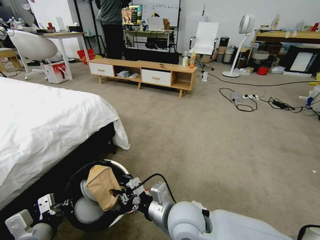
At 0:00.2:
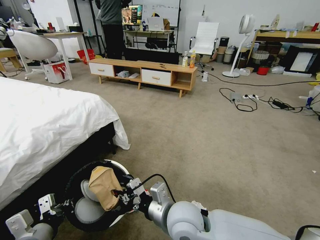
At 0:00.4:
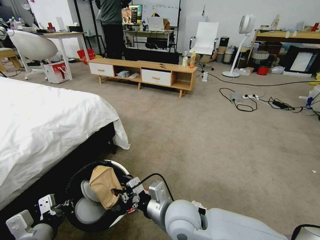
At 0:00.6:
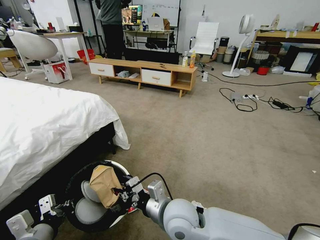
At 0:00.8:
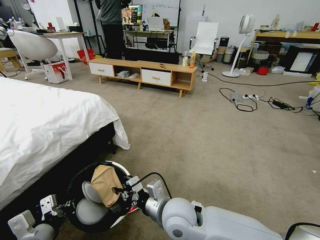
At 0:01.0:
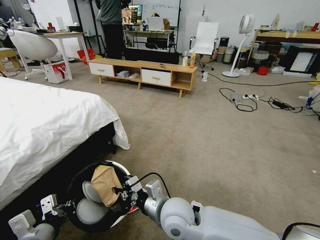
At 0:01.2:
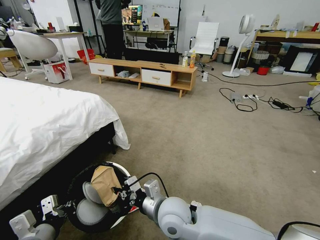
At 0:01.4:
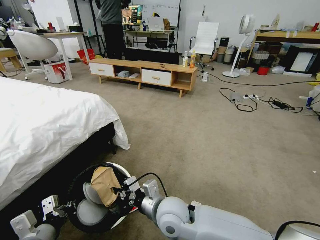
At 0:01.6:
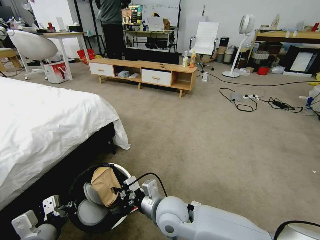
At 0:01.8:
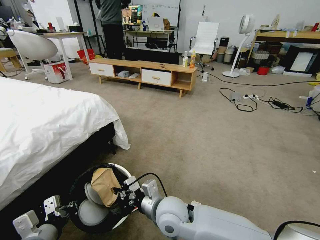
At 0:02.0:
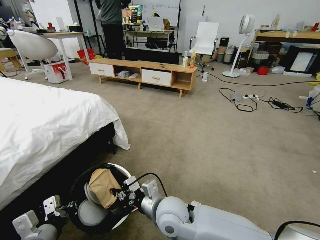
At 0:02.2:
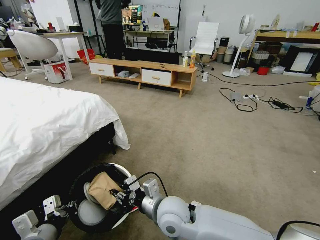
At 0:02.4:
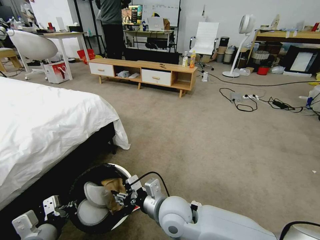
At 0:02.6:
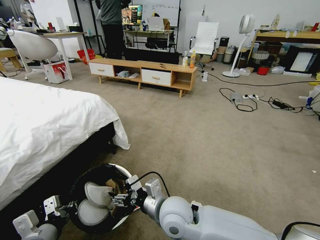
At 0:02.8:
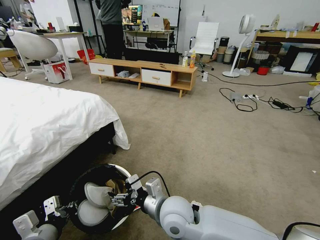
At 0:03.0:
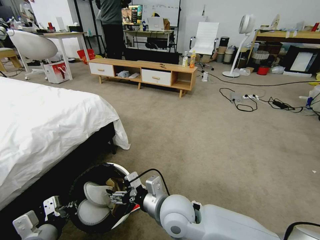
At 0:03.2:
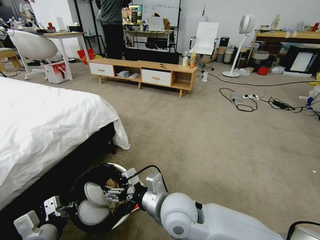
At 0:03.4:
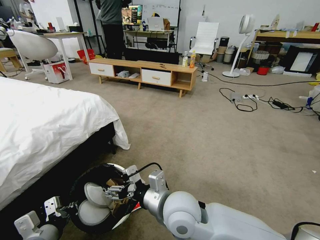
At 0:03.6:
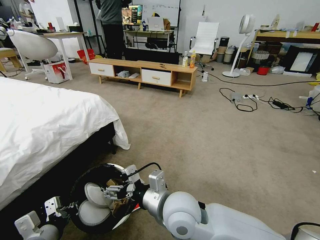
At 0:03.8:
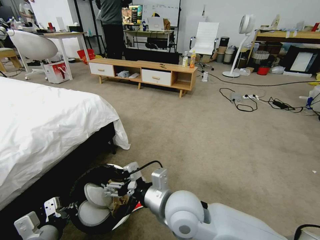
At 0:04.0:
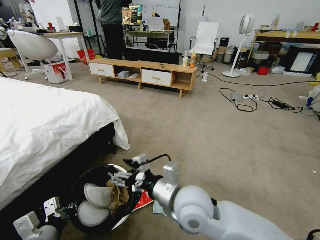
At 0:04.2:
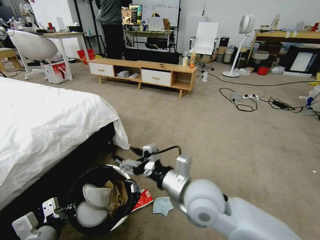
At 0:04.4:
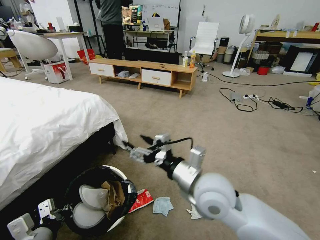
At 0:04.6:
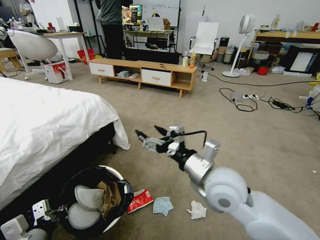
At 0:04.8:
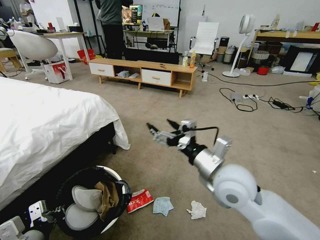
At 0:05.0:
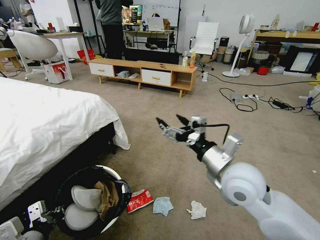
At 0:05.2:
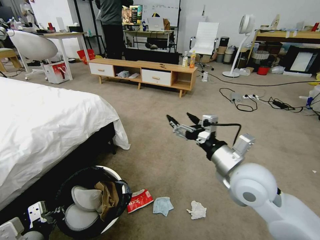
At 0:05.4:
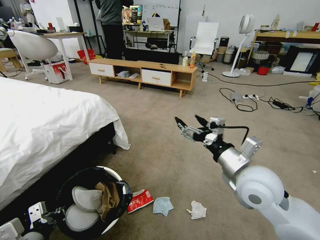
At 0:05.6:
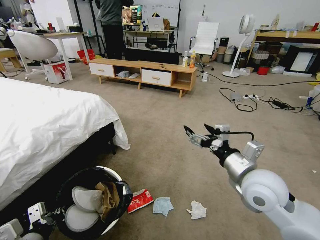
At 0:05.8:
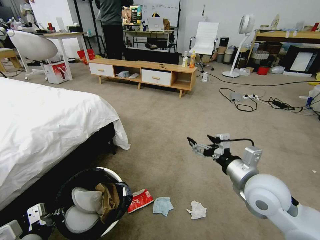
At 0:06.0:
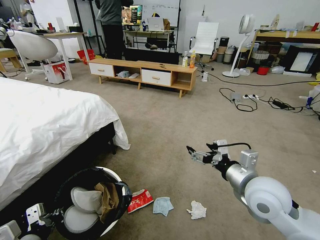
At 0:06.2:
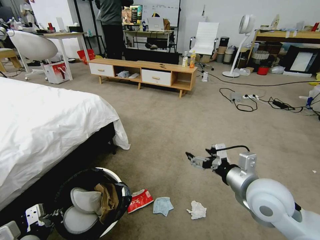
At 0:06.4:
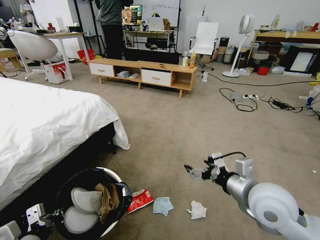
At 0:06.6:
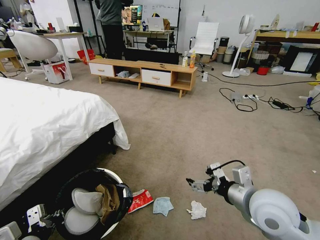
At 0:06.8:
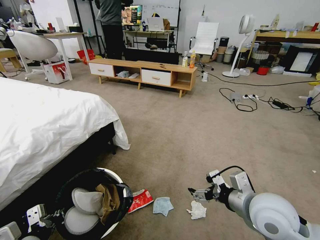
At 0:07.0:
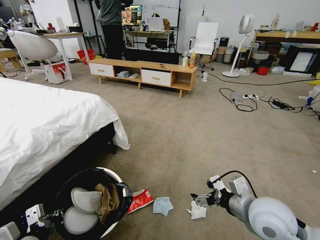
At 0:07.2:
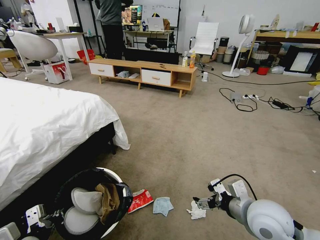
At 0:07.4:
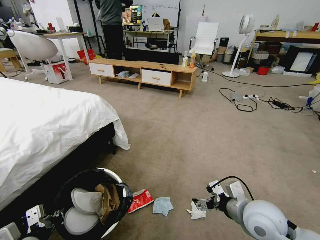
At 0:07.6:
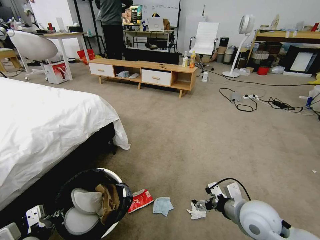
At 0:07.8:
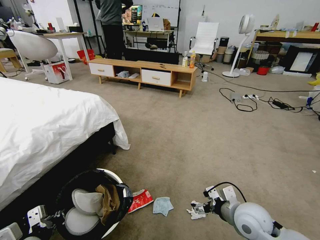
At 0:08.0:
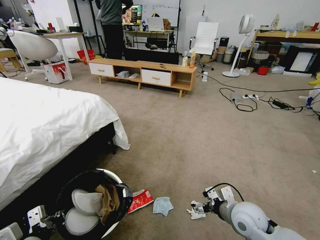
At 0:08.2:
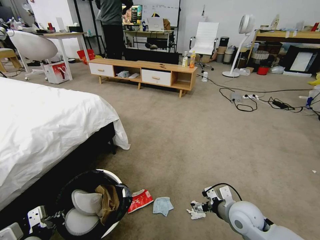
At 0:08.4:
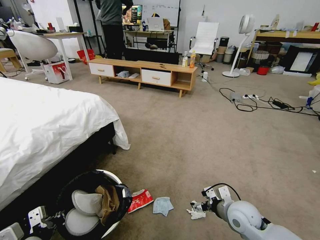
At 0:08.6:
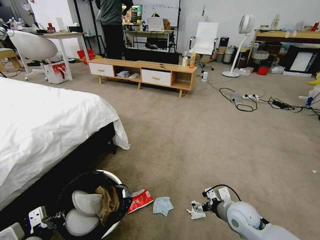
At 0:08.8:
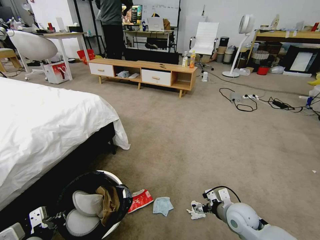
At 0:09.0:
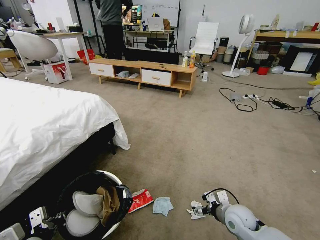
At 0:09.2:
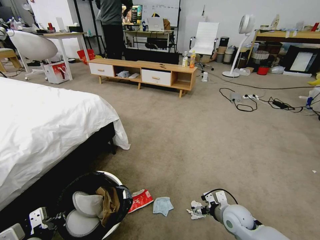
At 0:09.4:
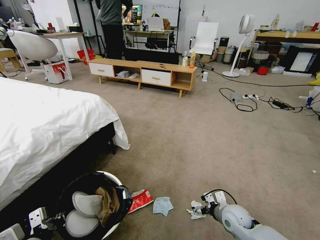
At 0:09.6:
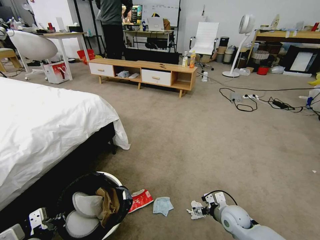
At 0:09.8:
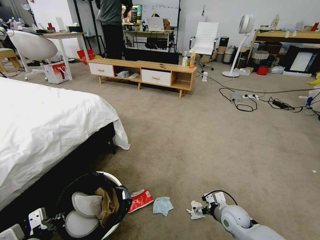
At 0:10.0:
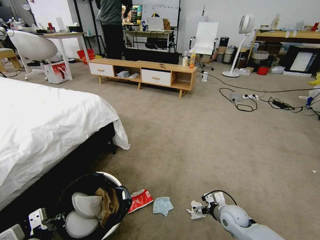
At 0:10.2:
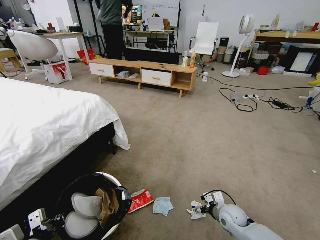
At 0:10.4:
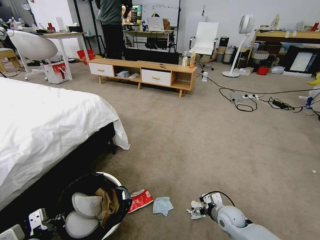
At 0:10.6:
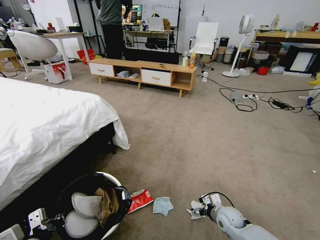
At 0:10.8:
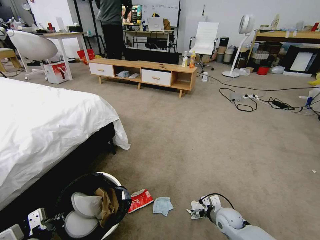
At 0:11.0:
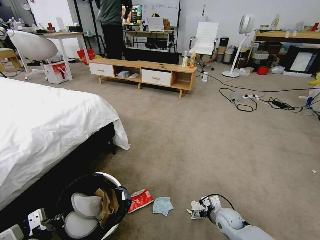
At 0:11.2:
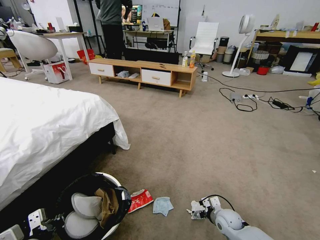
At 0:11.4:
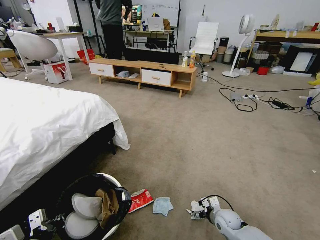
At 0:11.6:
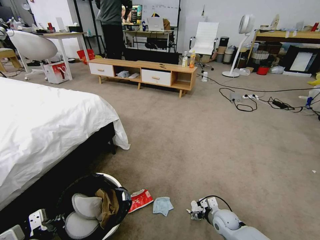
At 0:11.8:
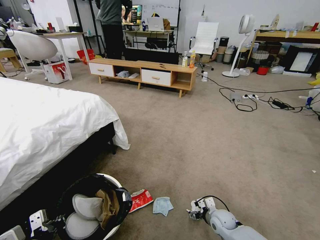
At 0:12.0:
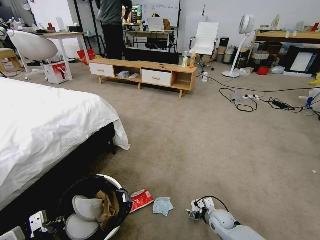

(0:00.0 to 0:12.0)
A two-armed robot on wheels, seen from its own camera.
Task of the whole recording: Pick up the trash bin and place the garbage on the floor into it.
0:00.0 - 0:01.6: The right gripper changes place by approximately 5 cm.
0:01.6 - 0:03.0: The right gripper opens up.
0:03.0 - 0:04.4: The right gripper moves upward and to the right, approximately 10 cm.
0:04.4 - 0:06.0: The right gripper moves to the right, about 15 cm.
0:06.0 - 0:07.6: The right gripper shifts approximately 10 cm downward.
0:07.6 - 0:09.0: The right gripper goes about 10 cm downward.
0:09.0 - 0:10.4: The right gripper moves downward, about 5 cm.
0:10.4 - 0:12.0: The right gripper is displaced downward by about 5 cm.

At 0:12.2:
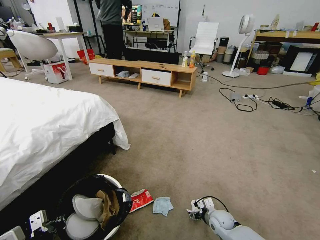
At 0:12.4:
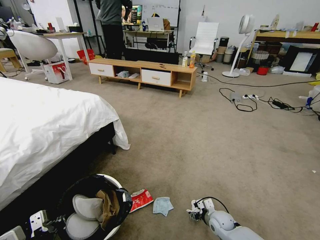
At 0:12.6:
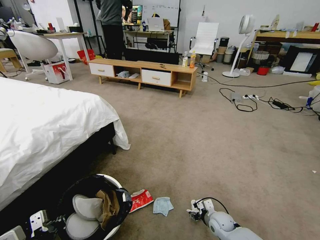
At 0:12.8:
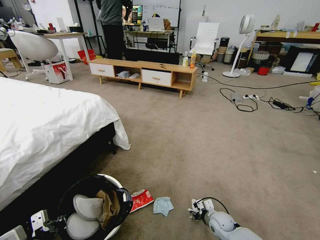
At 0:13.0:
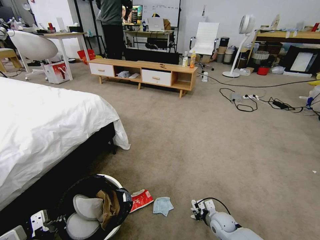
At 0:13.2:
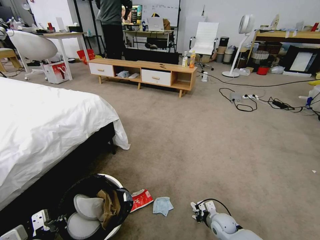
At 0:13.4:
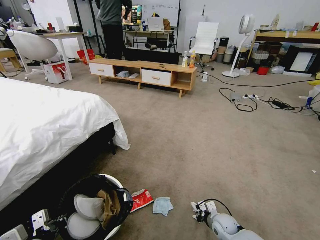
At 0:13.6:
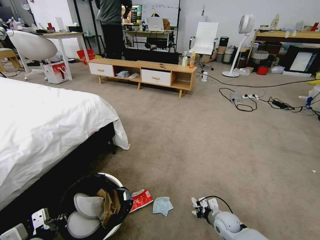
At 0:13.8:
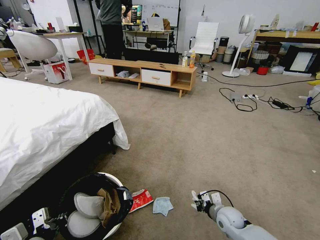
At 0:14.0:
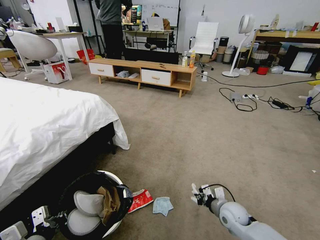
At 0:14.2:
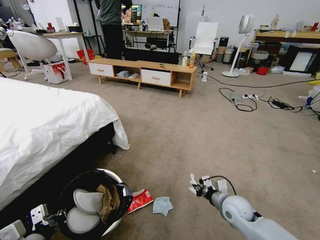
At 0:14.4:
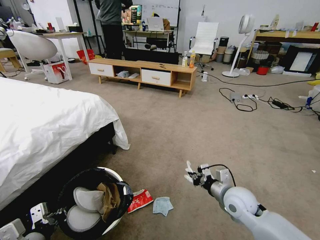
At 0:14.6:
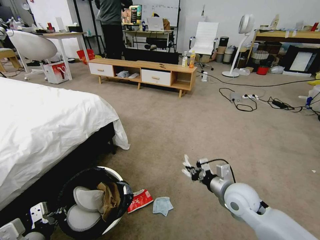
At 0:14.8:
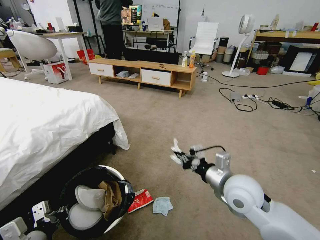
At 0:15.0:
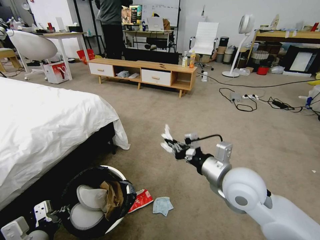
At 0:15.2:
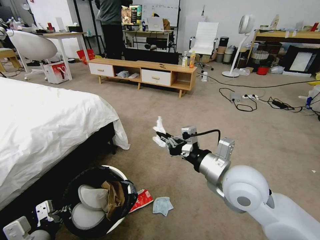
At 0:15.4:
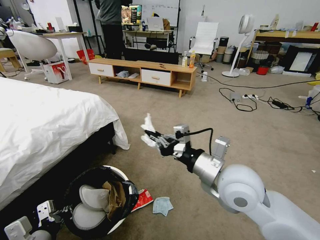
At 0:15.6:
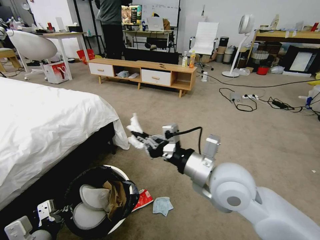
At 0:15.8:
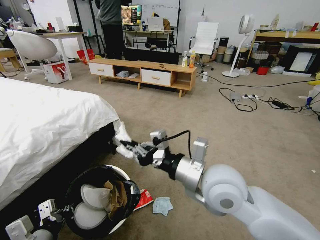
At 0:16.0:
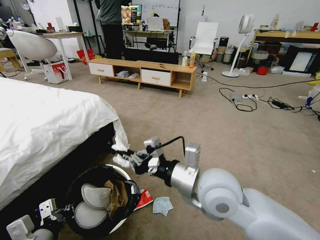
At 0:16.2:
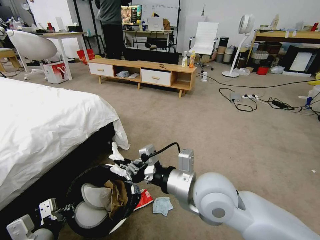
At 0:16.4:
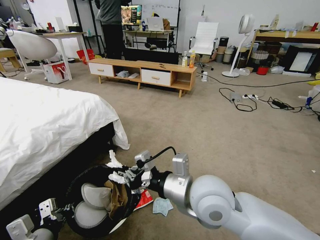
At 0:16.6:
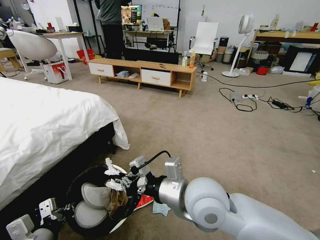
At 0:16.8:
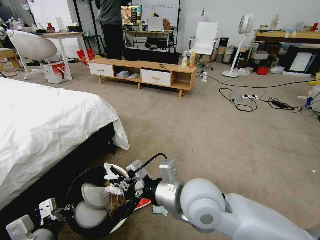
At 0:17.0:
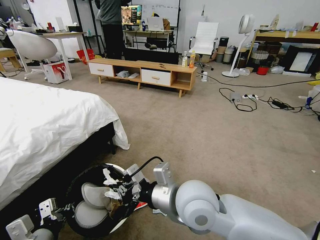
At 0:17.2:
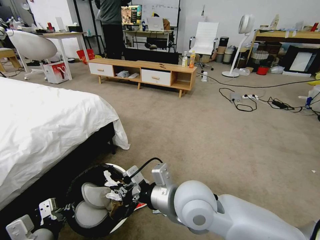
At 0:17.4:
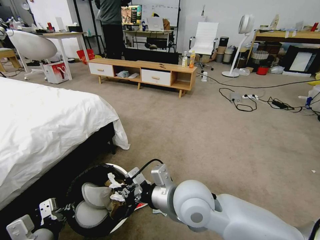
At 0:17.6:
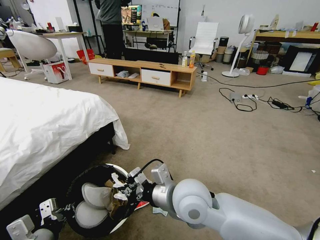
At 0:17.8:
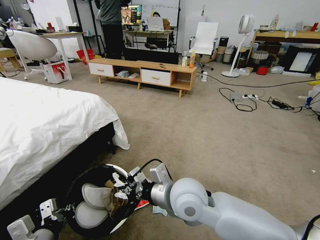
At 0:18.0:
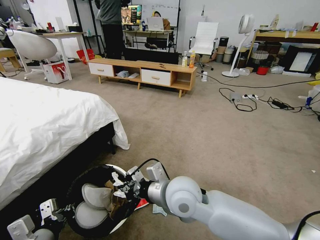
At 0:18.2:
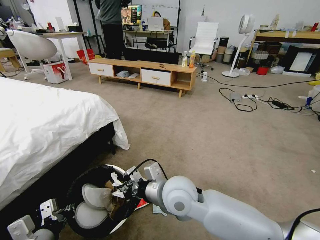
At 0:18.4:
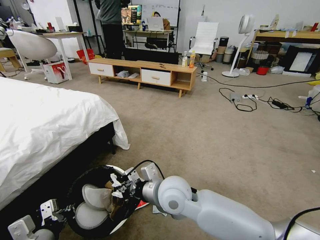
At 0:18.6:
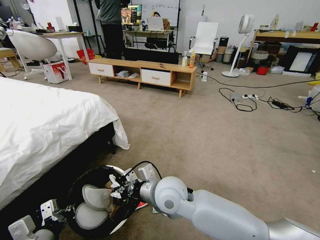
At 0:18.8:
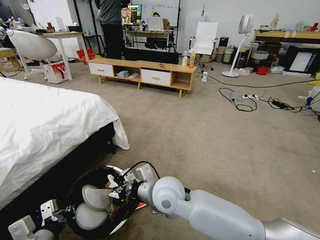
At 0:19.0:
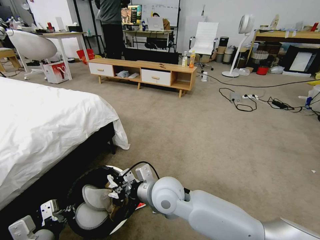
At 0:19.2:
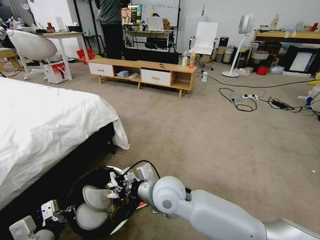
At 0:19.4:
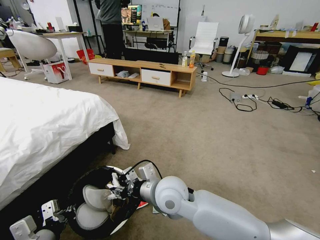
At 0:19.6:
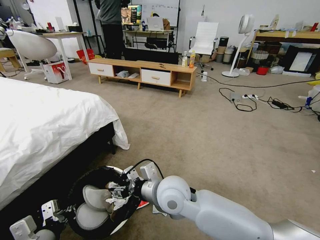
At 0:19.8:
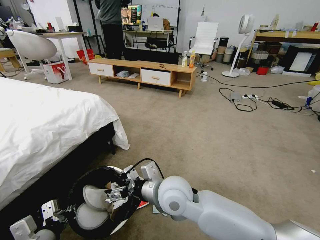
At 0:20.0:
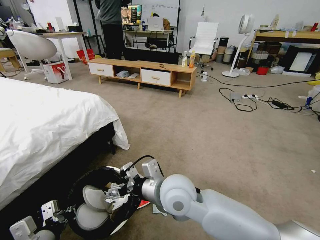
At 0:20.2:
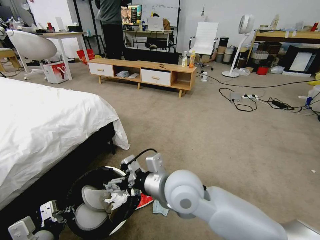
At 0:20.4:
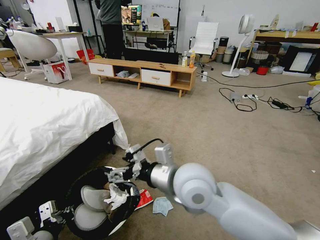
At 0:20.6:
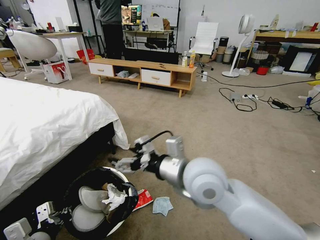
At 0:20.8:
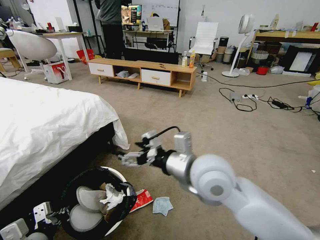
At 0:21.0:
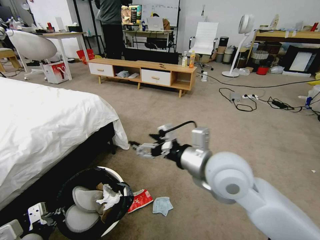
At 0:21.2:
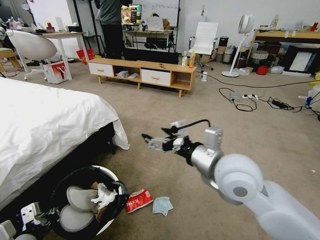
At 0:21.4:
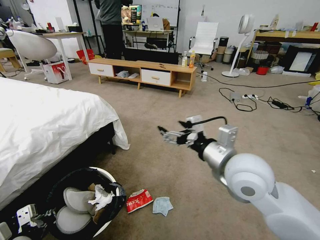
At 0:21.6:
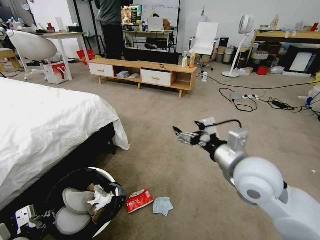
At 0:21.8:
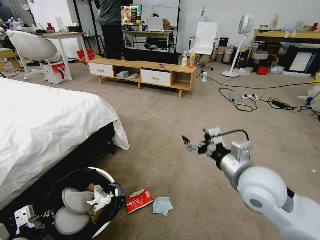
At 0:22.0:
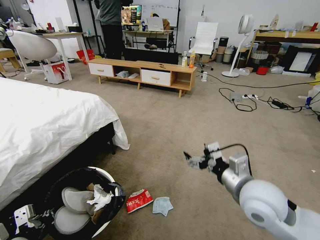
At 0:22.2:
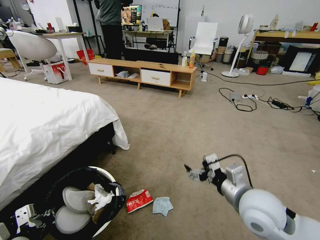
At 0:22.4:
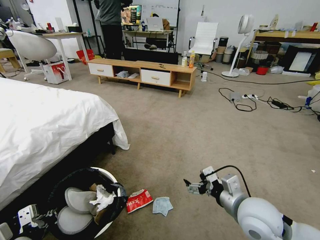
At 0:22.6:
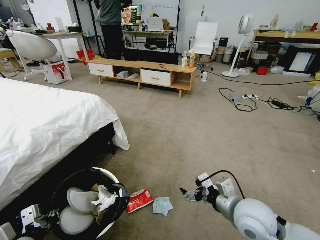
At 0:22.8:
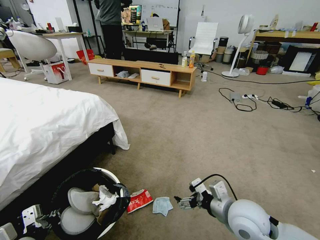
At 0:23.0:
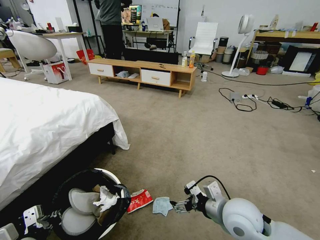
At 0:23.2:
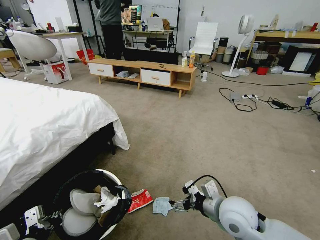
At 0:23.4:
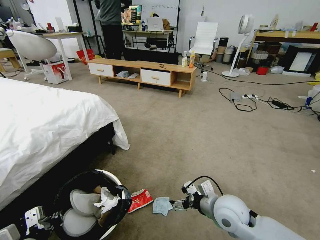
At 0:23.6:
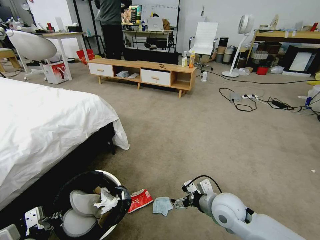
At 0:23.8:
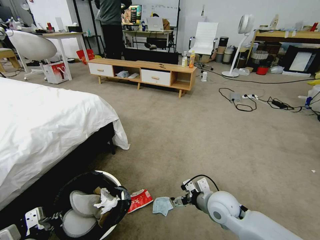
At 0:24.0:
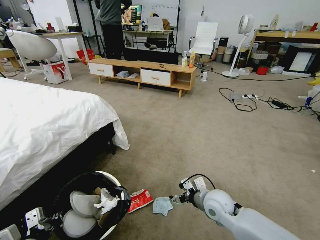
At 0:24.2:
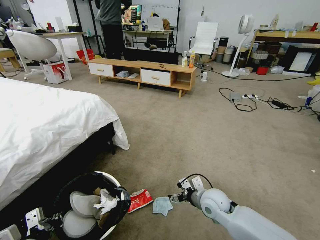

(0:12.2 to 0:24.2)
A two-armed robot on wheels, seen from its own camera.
Task of the whole recording: Pick up the trash bin and place the garbage on the floor into it.
0:12.2 - 0:13.8: The right gripper goes some 5 cm upward, and closes its fingers.
0:13.8 - 0:15.2: The right gripper shifts some 30 cm upward.
0:15.2 - 0:16.6: The right gripper heads to the left, covering about 10 cm.
0:16.6 - 0:18.2: The right gripper shifts some 5 cm downward.
0:18.2 - 0:19.8: The right gripper opens its fingers.
0:19.8 - 0:21.2: The right gripper is displaced to the right and upward by about 15 cm.
0:21.2 - 0:22.6: The right gripper shifts about 15 cm downward and to the right.
0:22.6 - 0:24.2: The right gripper moves downward and forward, roughly 15 cm.
